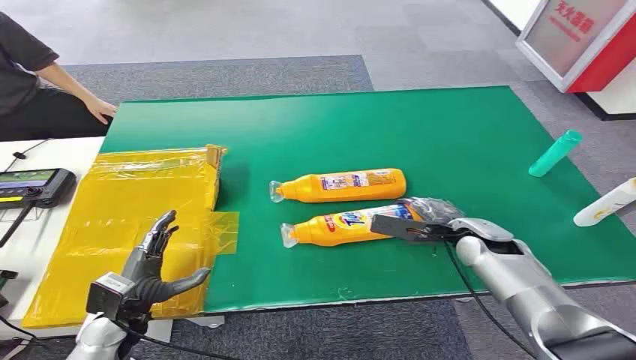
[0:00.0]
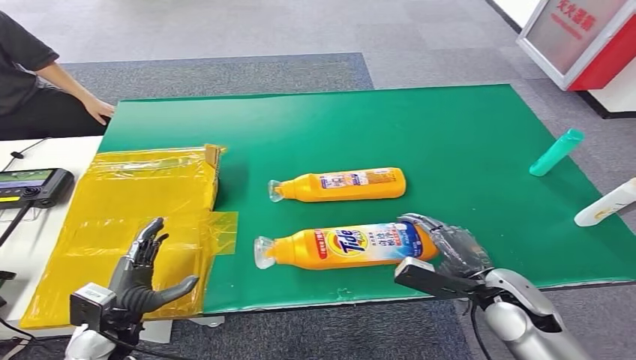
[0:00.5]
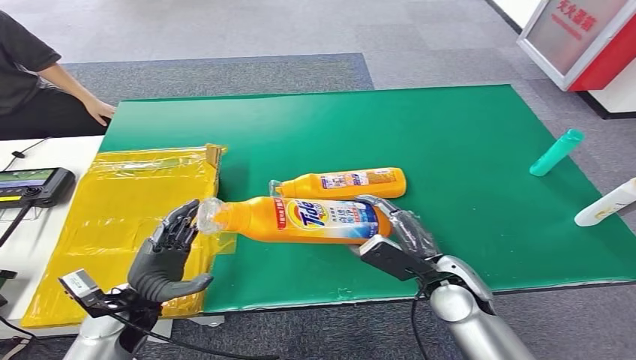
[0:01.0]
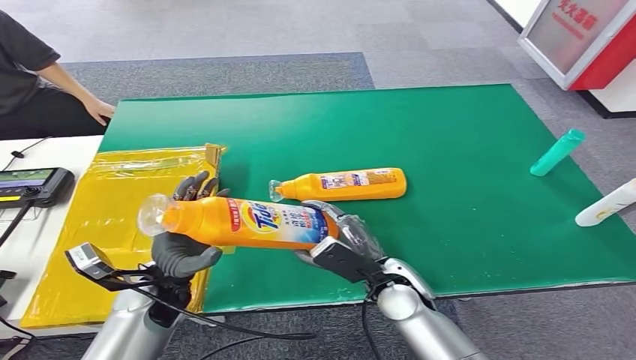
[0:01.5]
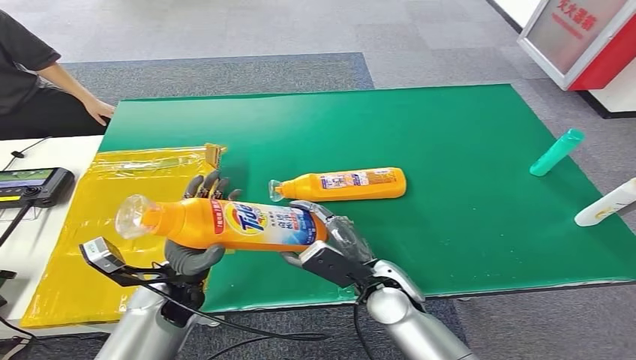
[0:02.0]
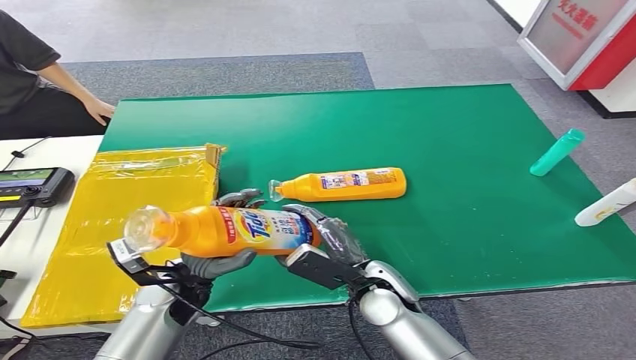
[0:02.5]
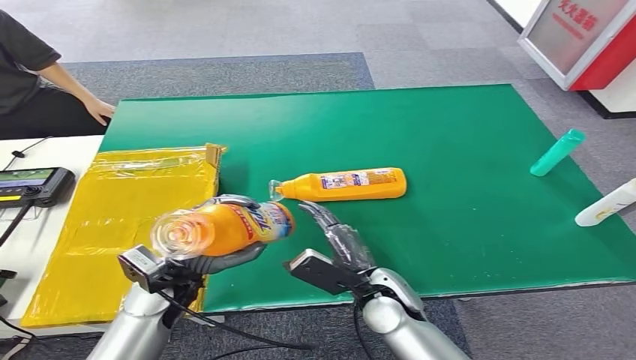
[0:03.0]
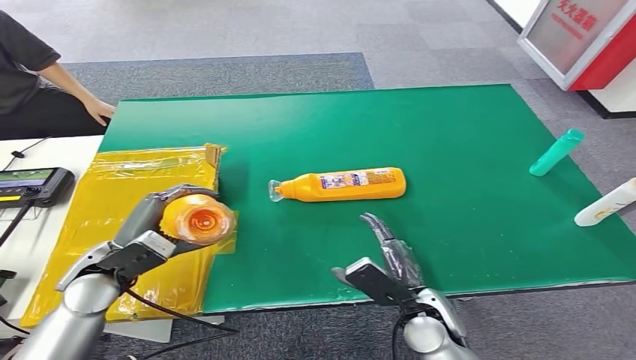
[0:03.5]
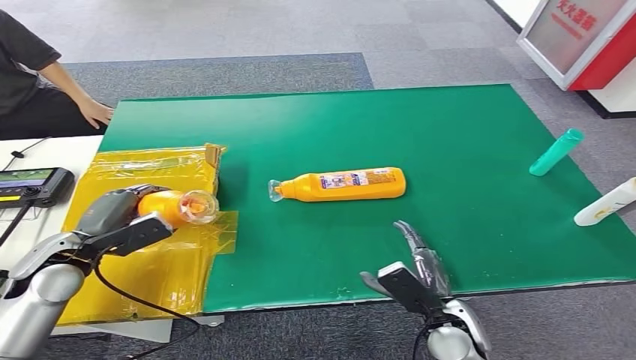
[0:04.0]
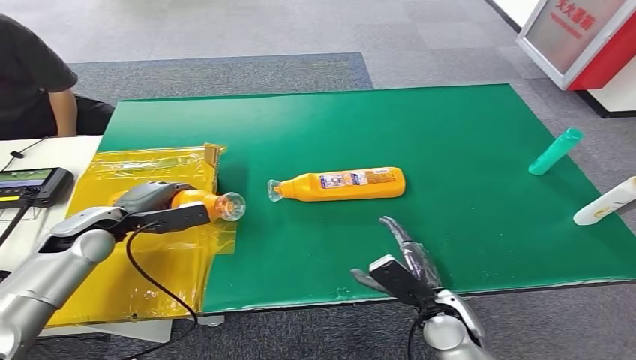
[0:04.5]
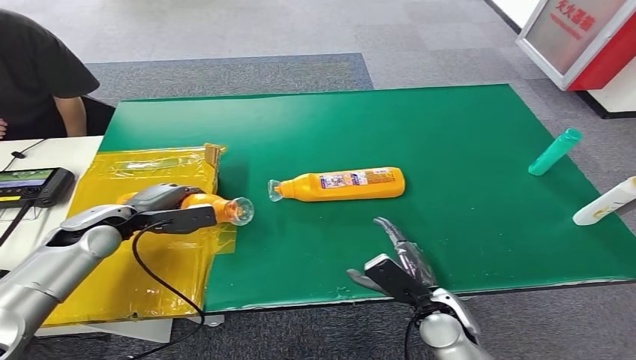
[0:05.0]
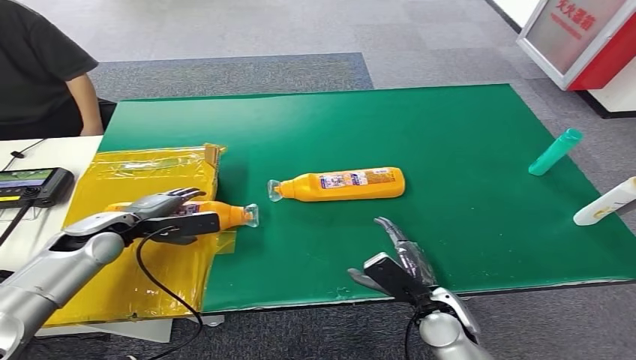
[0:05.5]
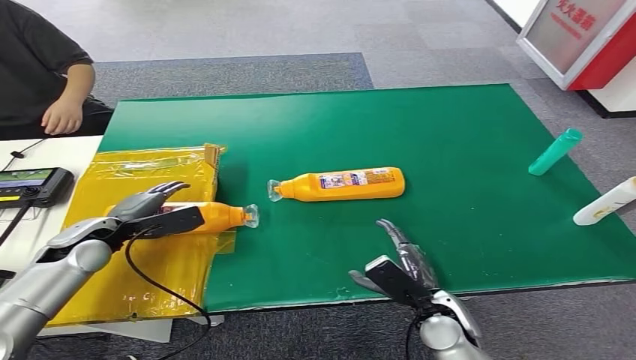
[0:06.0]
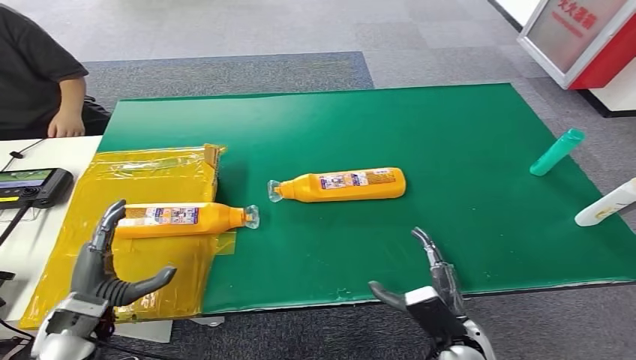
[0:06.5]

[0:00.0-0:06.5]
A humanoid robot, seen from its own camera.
Step, 0:00.0 to 0:01.5: Pick up the bottle from the table.
Step, 0:03.5 to 0:06.5: Turn the bottle to the front side.
0:02.0 to 0:04.5: The right hand moves to the right, some 10 cm. Meanwhile the left hand moves to the left and forward, some 20 cm.
0:04.5 to 0:06.5: The left hand goes roughly 15 cm backward. The right hand shifts by some 5 cm.

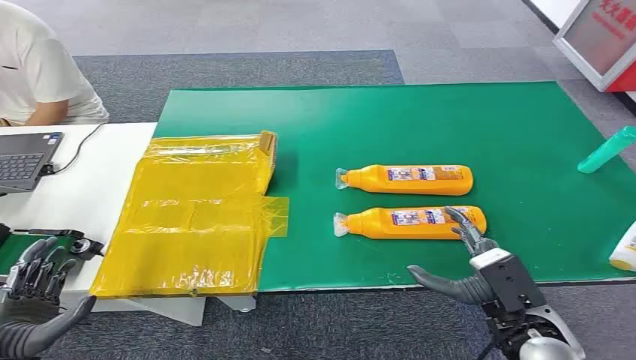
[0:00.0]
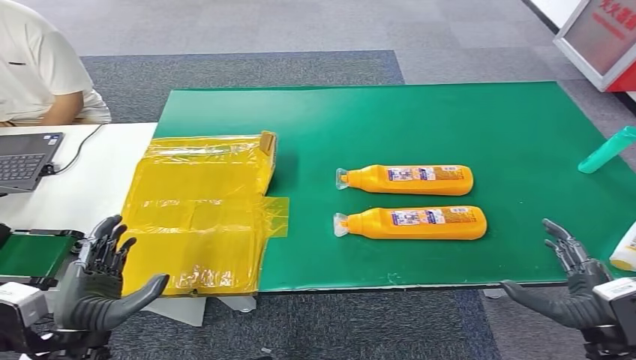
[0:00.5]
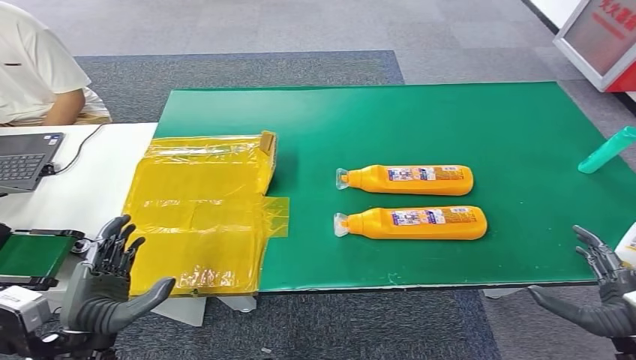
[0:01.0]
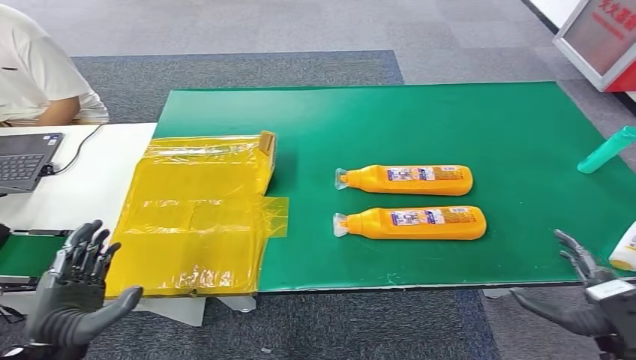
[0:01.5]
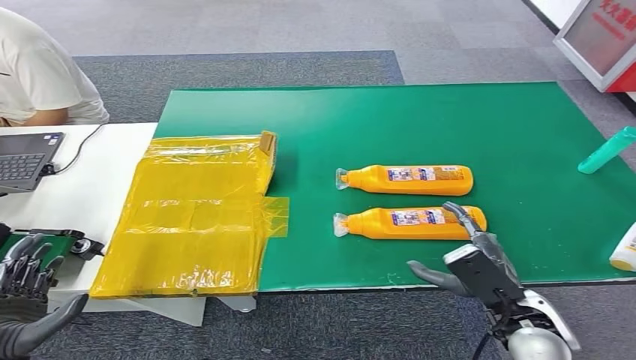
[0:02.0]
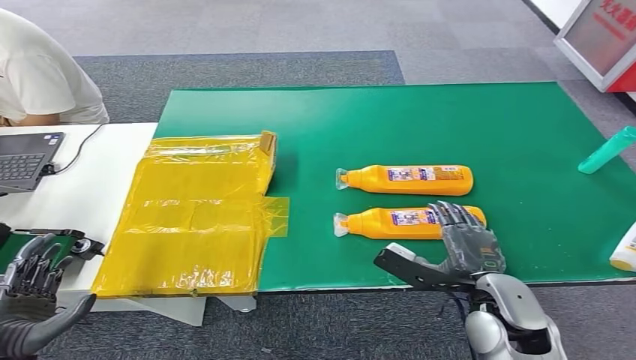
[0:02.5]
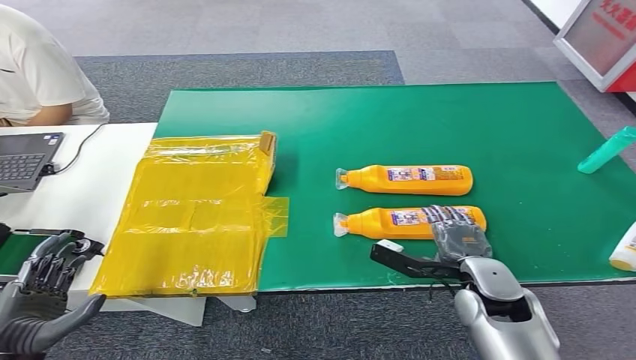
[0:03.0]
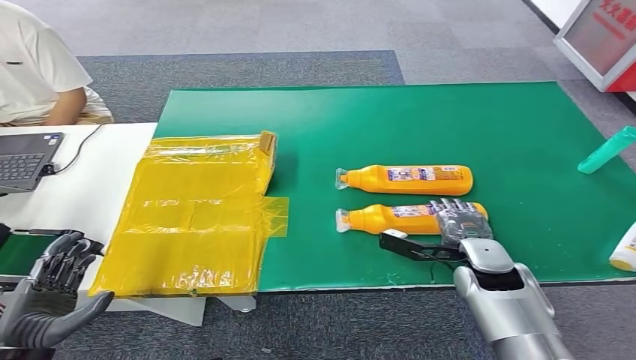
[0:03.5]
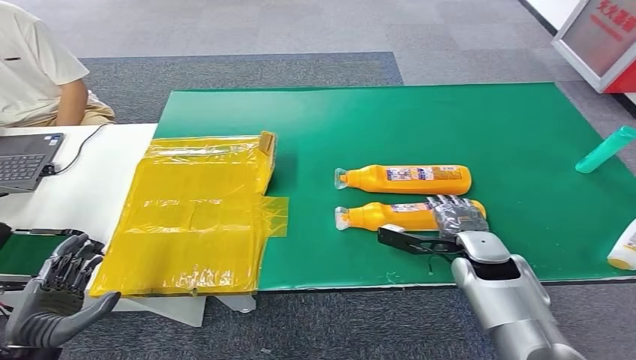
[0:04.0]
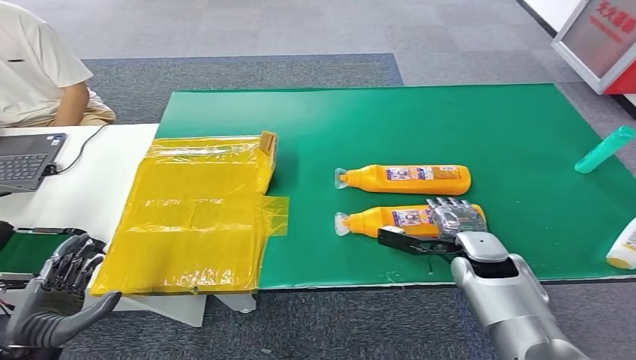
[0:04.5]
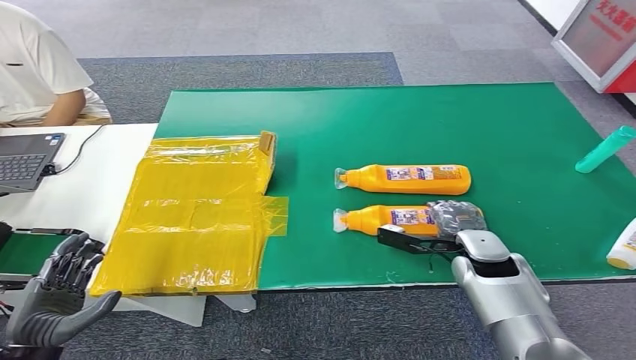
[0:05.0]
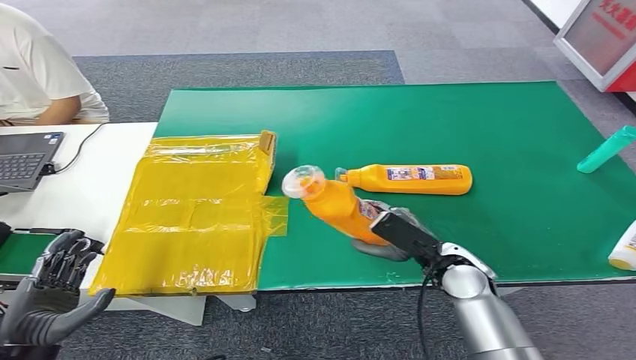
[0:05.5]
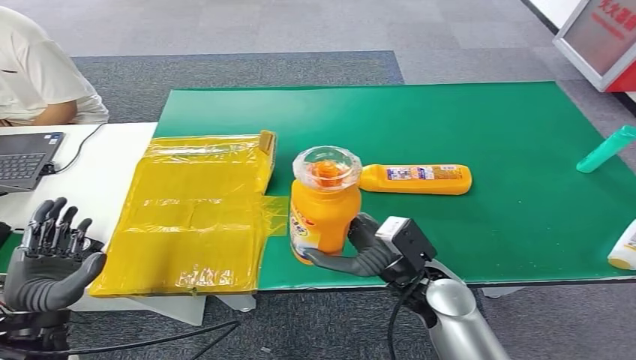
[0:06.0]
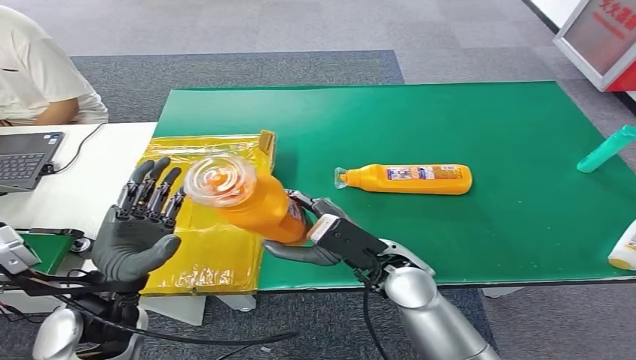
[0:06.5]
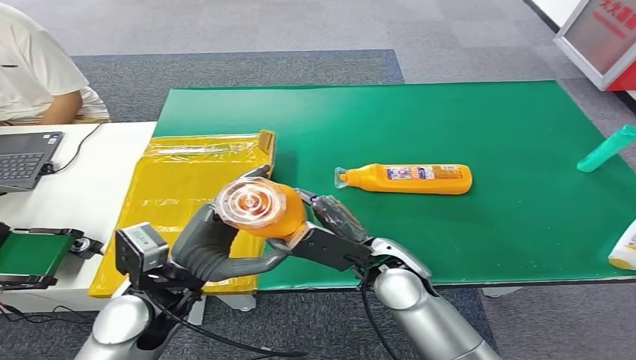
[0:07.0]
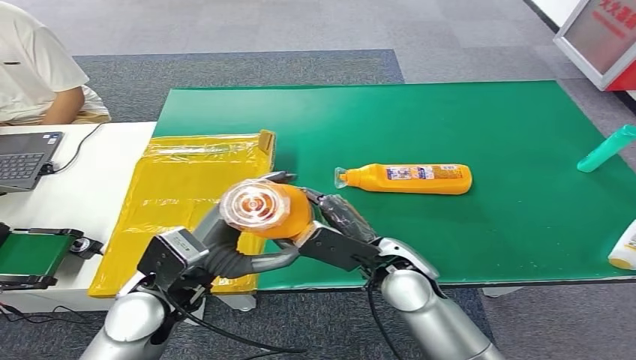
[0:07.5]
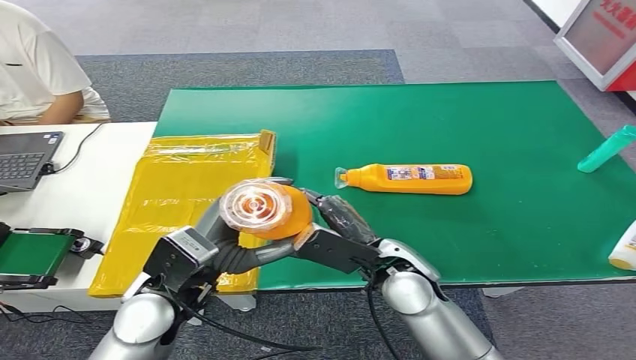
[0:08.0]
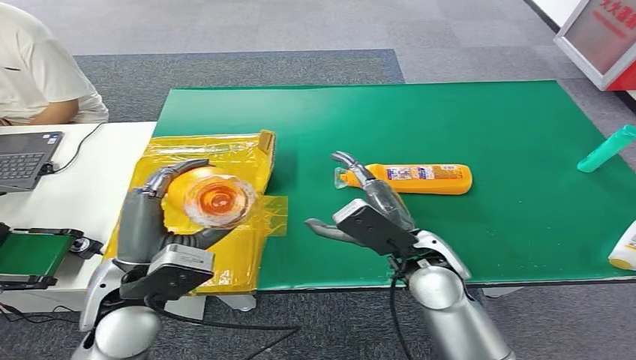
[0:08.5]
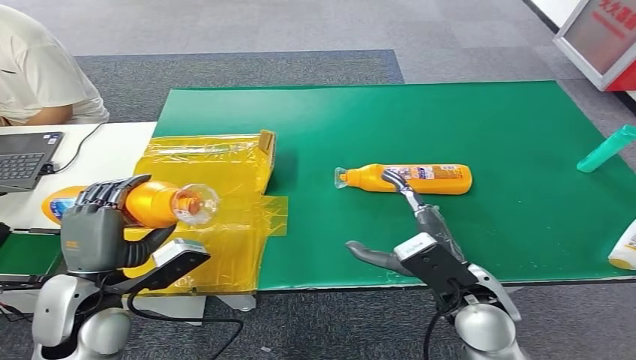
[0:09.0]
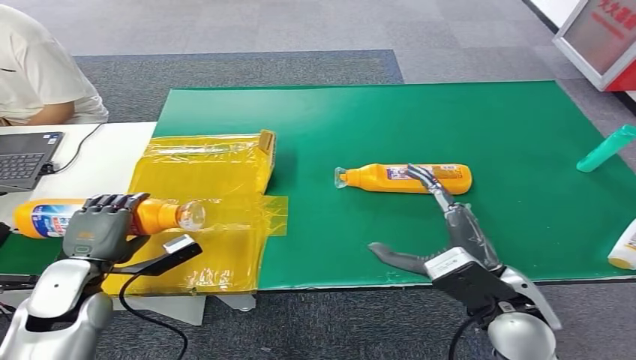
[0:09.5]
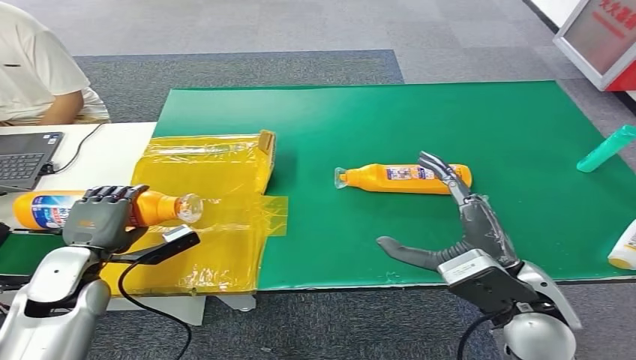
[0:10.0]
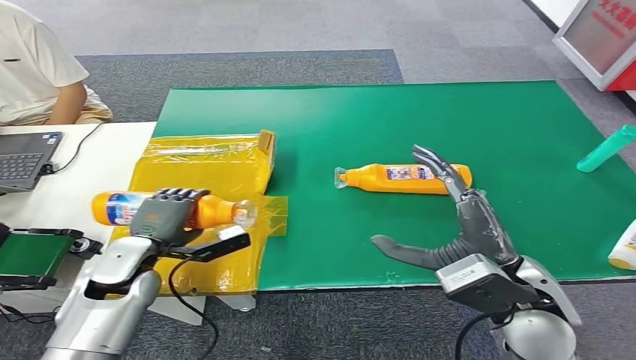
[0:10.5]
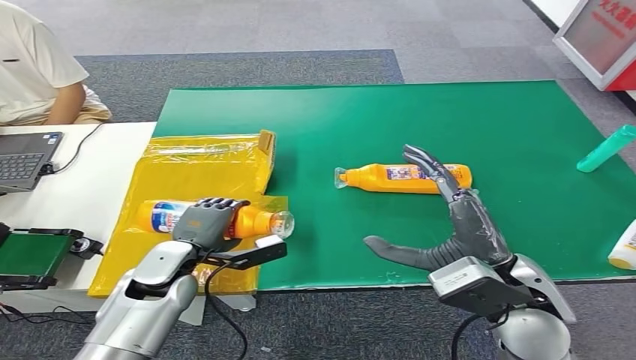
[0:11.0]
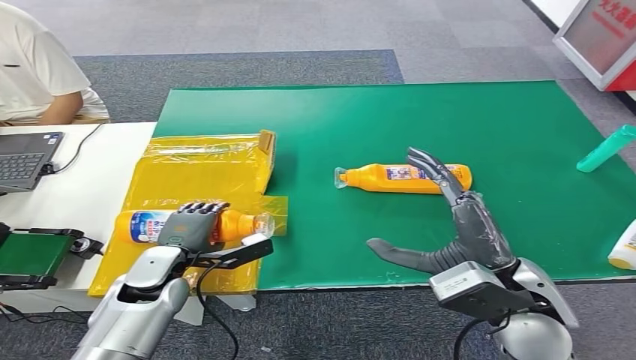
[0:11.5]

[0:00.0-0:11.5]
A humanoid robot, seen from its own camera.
Step, 0:00.0 to 0:06.0: Pick up the bottle from the table.
0:02.0 to 0:04.0: The right hand shifts approximately 15 cm forward.
0:04.0 to 0:06.0: The left hand changes place by some 5 cm. Meanwhile the right hand shifts some 10 cm to the left and backward.
0:06.0 to 0:07.5: The left hand shifts roughly 15 cm to the right and forward; the right hand moves roughly 5 cm.
0:09.5 to 0:11.5: The left hand moves to the right, roughly 10 cm.

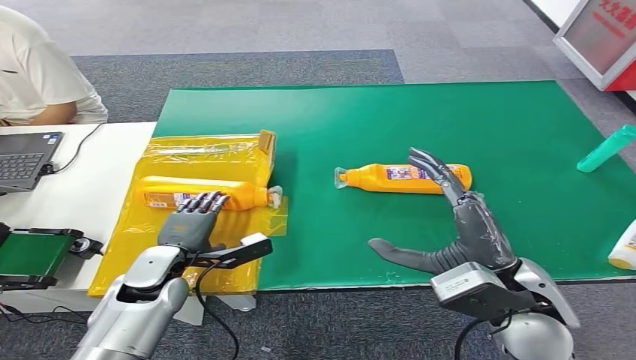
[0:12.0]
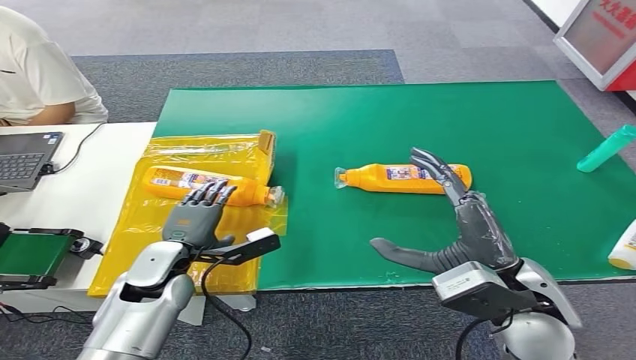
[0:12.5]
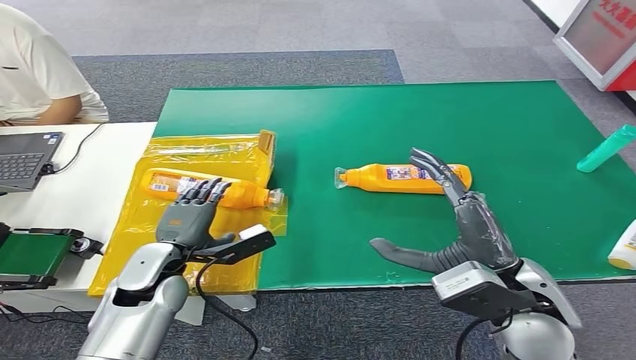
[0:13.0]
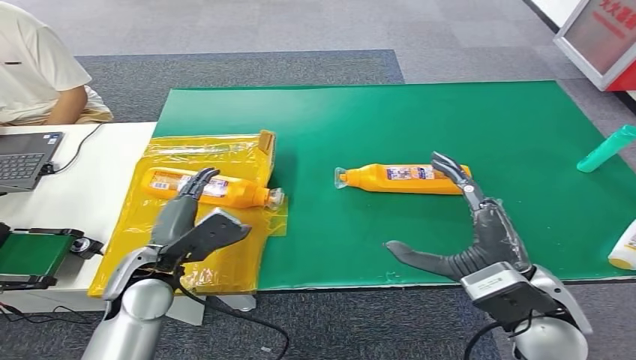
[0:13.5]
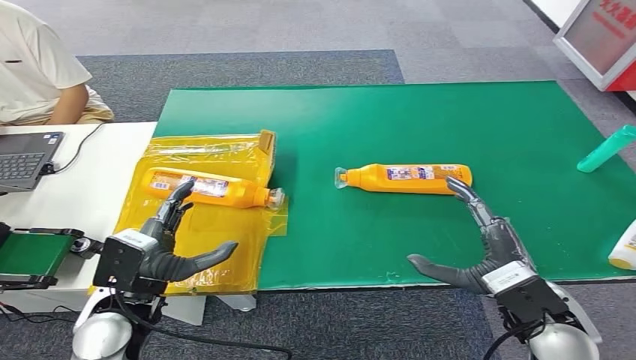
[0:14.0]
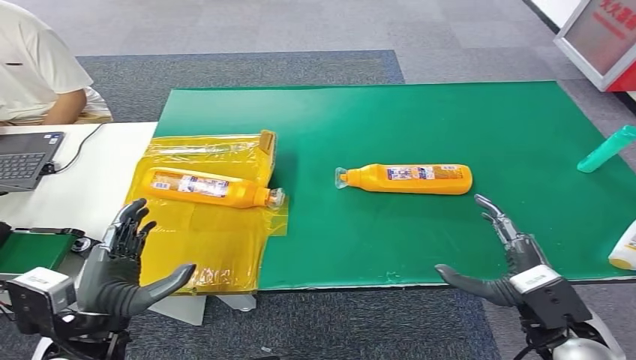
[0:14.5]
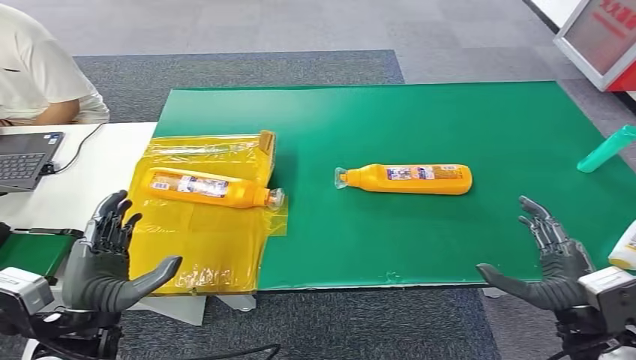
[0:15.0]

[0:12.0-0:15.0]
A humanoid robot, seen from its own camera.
Step, 0:12.0 to 0:14.5: Turn the bottle to the front side.
0:12.0 to 0:13.5: The left hand travels upward by some 5 cm.
0:13.5 to 0:15.0: The right hand travels to the right and downward by roughly 15 cm, while the left hand shifts about 10 cm backward.
